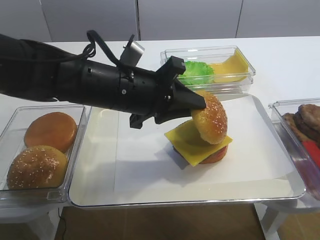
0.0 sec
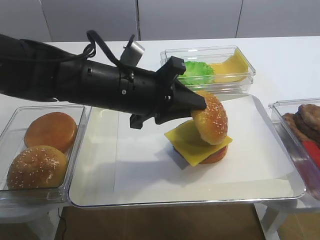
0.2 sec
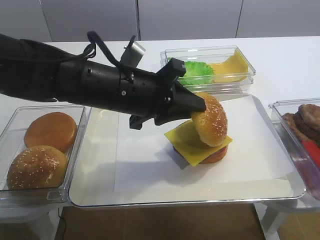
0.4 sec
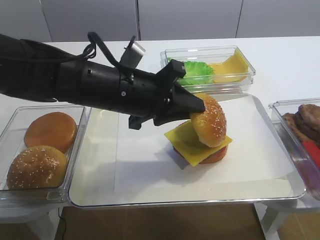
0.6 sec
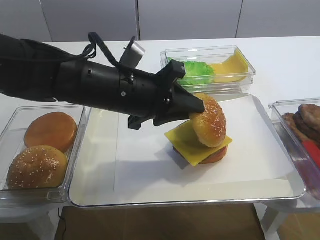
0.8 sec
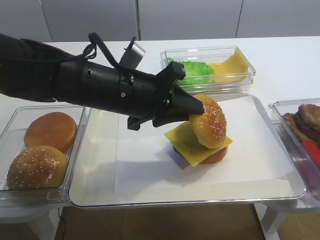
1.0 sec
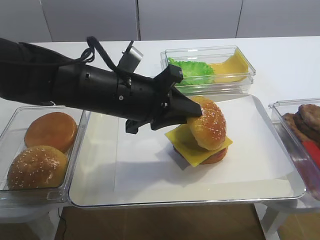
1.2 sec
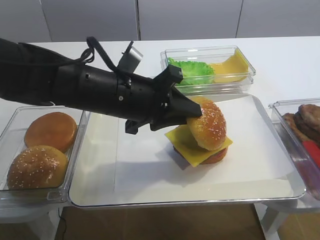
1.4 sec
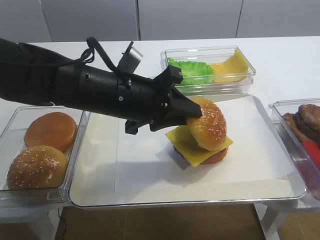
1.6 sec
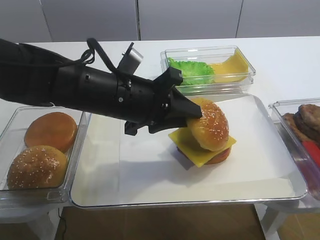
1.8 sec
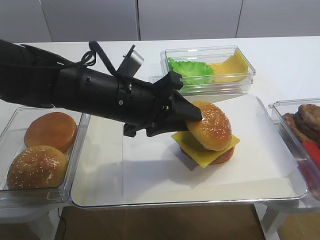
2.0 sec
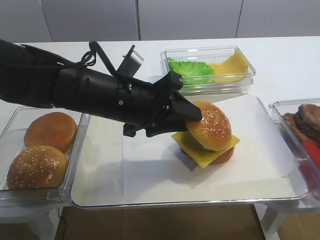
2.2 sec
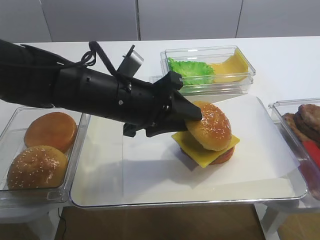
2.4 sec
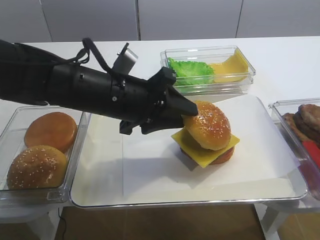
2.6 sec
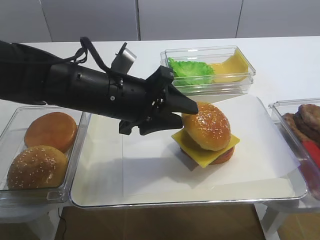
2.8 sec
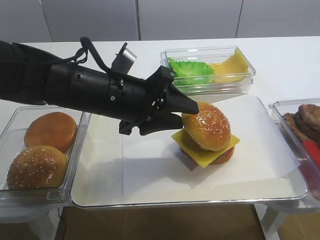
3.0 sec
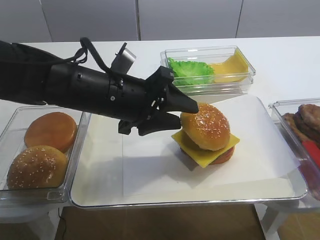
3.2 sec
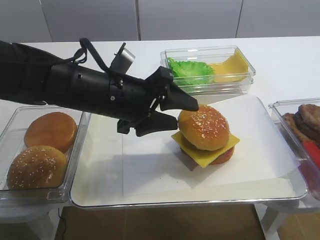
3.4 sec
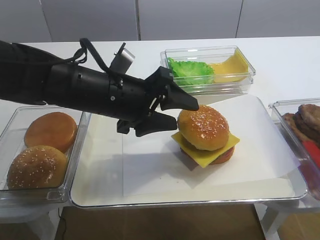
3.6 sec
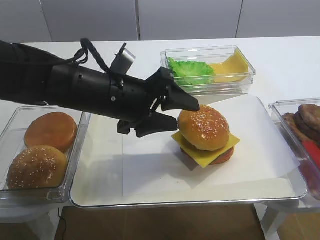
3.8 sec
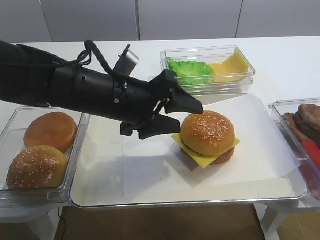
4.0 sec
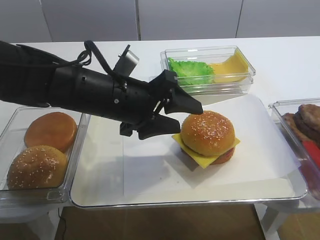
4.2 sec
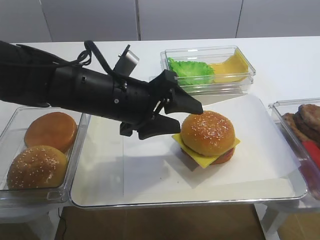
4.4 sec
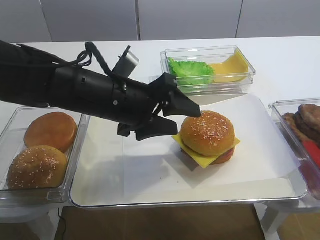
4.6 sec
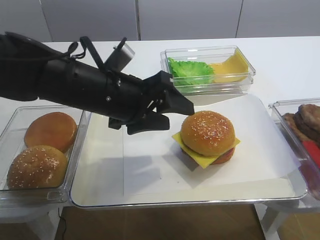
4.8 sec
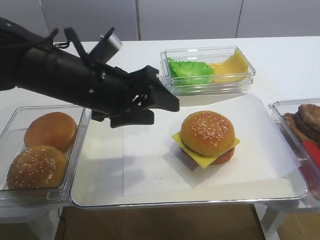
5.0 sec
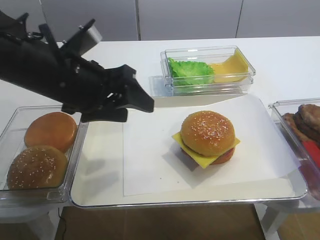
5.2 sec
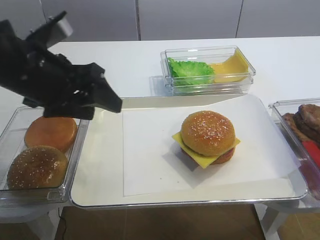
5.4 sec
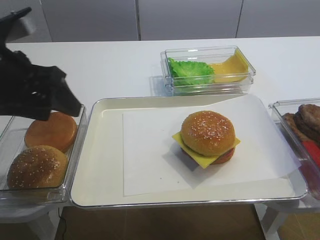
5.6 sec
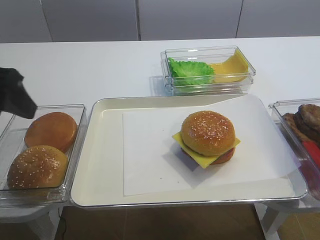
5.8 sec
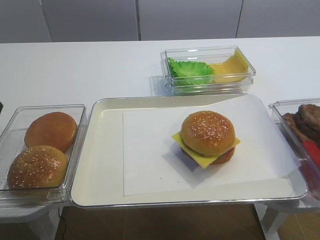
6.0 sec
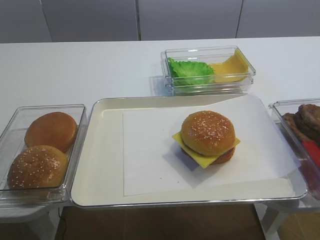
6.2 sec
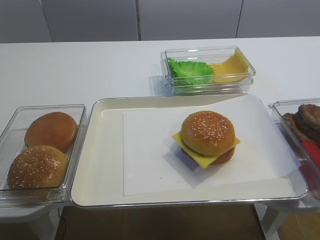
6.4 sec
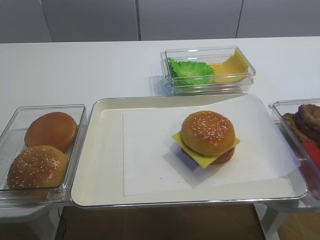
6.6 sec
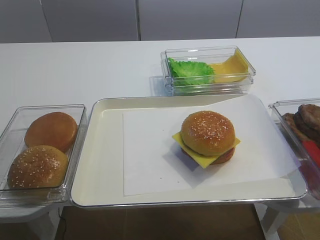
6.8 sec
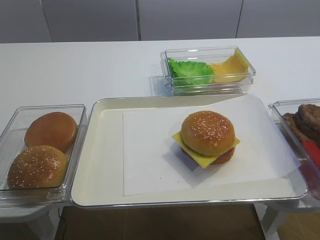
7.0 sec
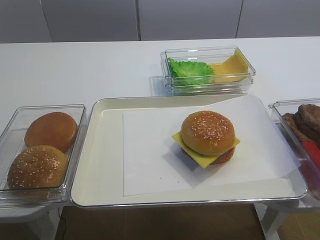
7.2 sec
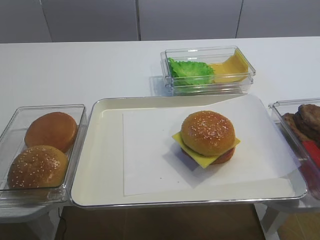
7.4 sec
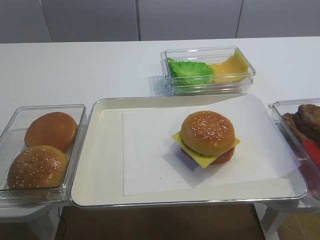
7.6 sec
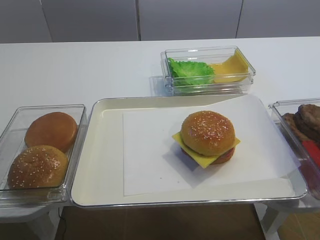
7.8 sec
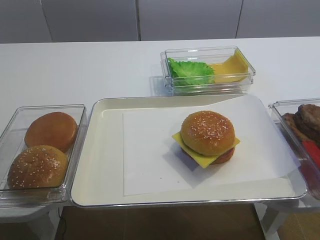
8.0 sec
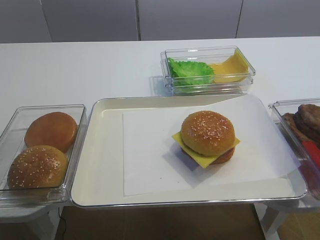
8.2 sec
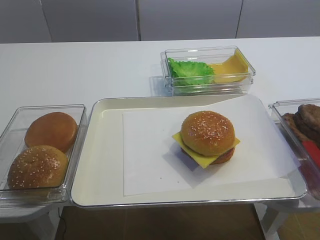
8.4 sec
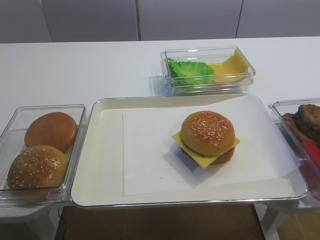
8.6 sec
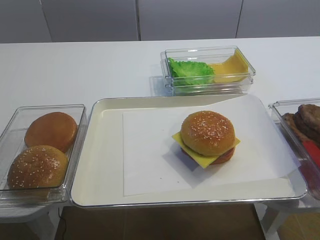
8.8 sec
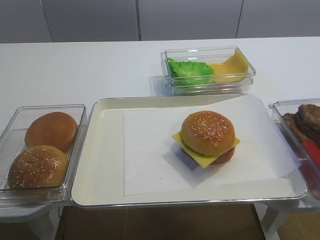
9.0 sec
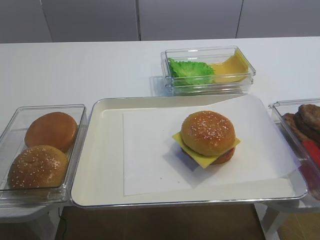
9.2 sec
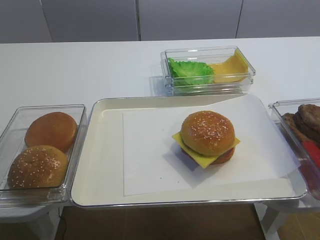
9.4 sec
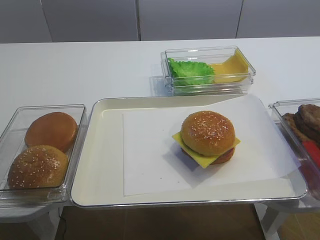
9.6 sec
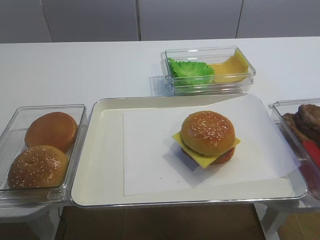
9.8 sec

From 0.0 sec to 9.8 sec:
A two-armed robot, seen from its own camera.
Step, from 0.0 sec to 4.8 sec: Place the hamburger lid on the cheese slice with the left gripper.
From 0.0 sec to 1.4 sec: Neither gripper changes place.
From 1.4 sec to 2.8 sec: The left gripper opens up.
From 2.8 sec to 4.2 sec: Both grippers stay put.
From 4.2 sec to 5.6 sec: The left gripper is displaced to the left and upward by approximately 15 cm.
From 5.6 sec to 7.0 sec: The left gripper heads backward, covering roughly 20 cm.

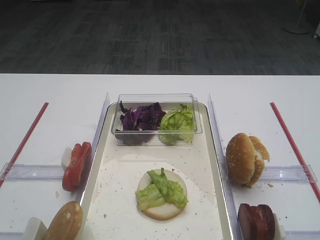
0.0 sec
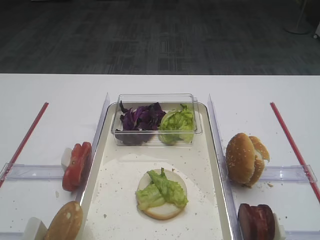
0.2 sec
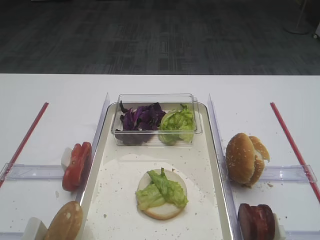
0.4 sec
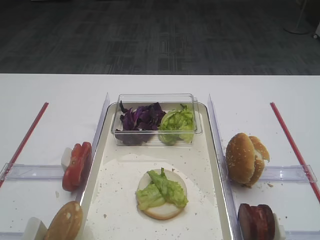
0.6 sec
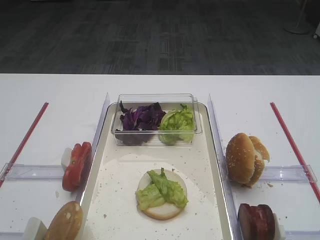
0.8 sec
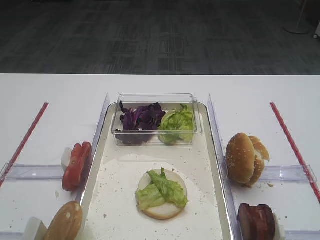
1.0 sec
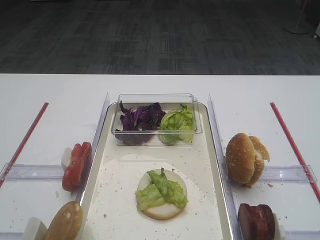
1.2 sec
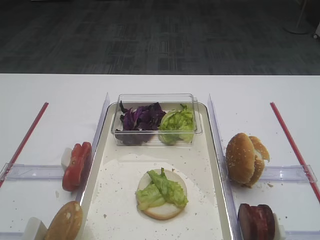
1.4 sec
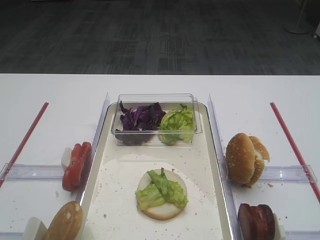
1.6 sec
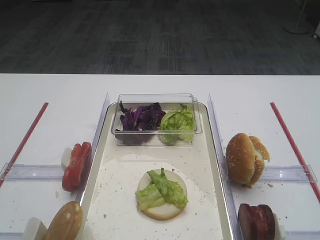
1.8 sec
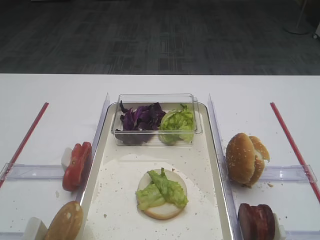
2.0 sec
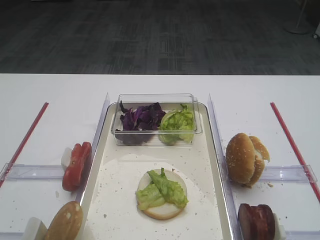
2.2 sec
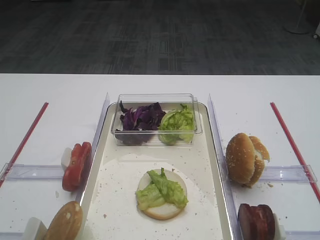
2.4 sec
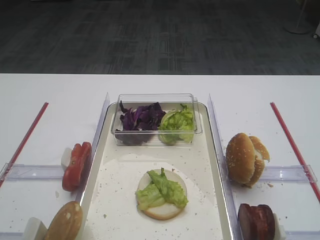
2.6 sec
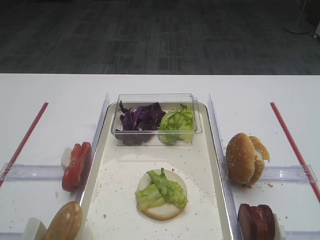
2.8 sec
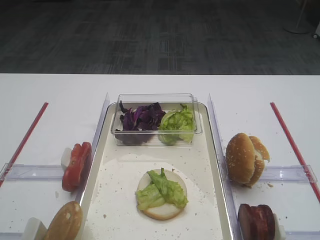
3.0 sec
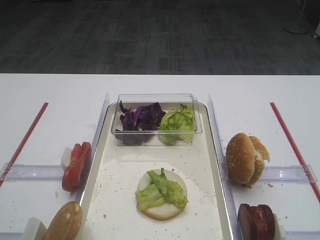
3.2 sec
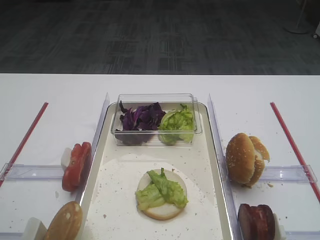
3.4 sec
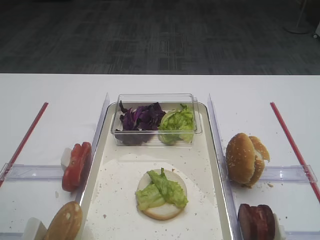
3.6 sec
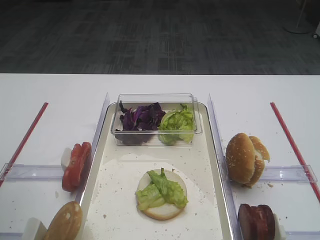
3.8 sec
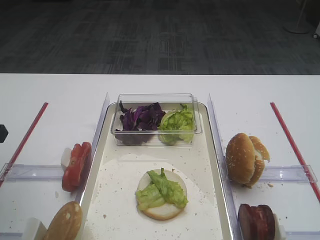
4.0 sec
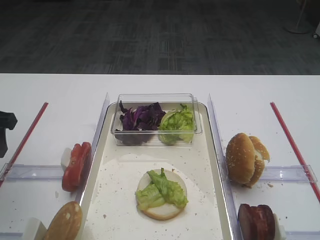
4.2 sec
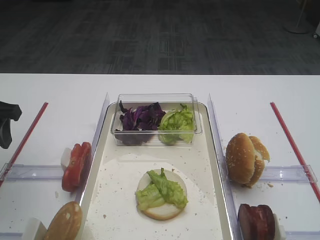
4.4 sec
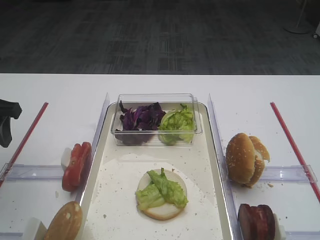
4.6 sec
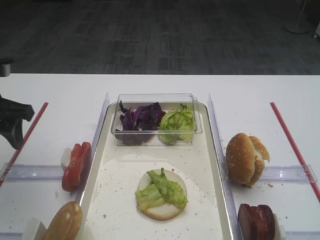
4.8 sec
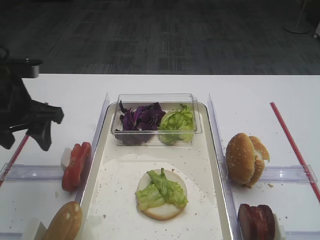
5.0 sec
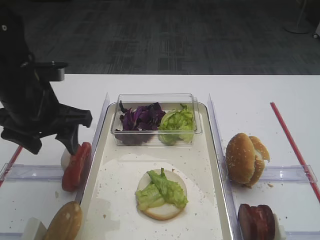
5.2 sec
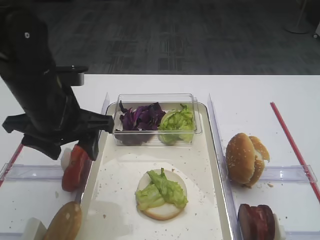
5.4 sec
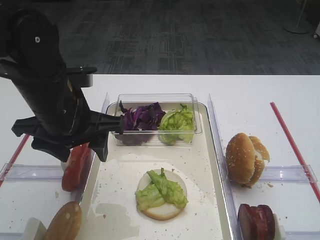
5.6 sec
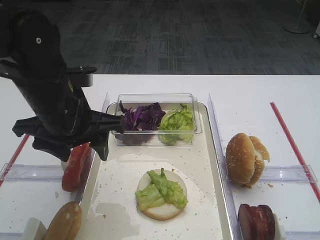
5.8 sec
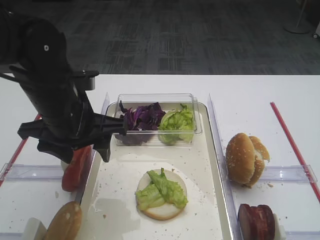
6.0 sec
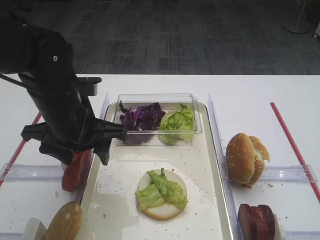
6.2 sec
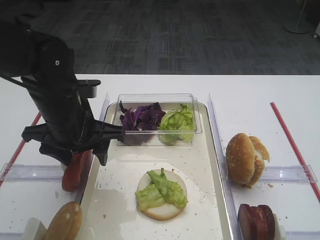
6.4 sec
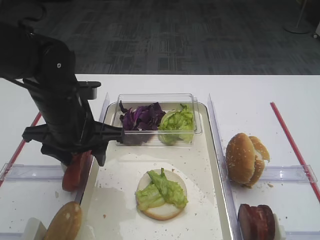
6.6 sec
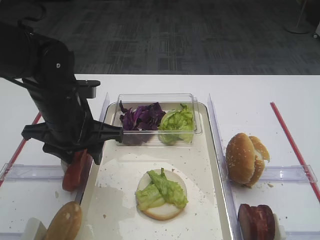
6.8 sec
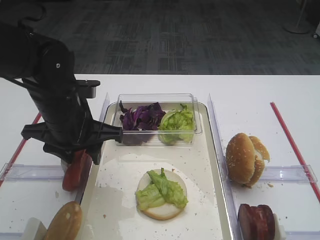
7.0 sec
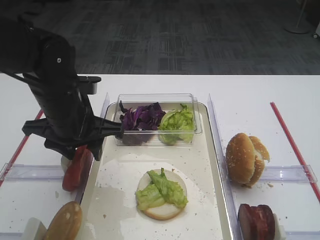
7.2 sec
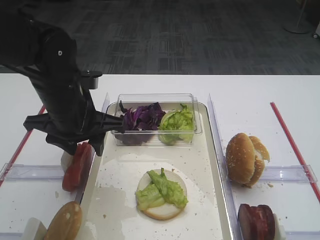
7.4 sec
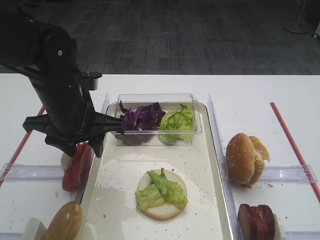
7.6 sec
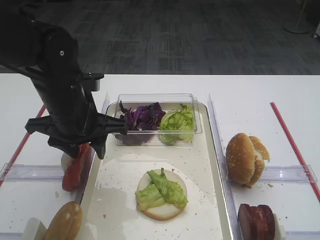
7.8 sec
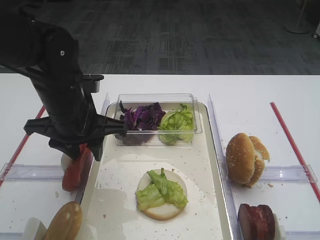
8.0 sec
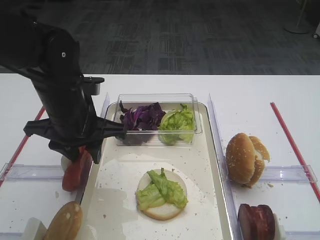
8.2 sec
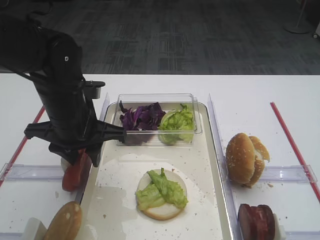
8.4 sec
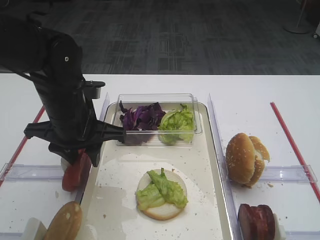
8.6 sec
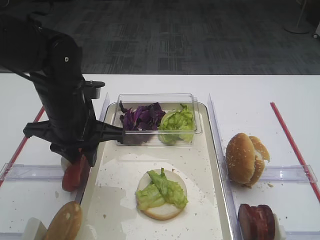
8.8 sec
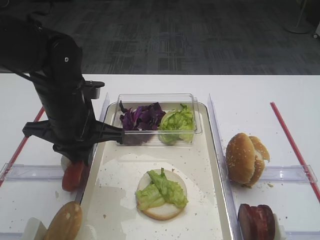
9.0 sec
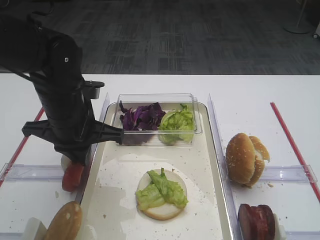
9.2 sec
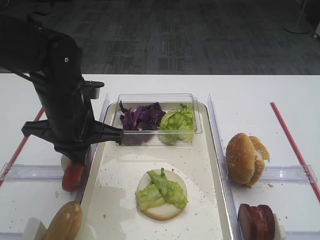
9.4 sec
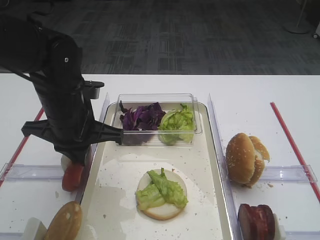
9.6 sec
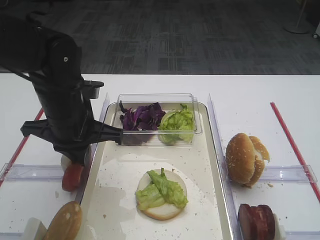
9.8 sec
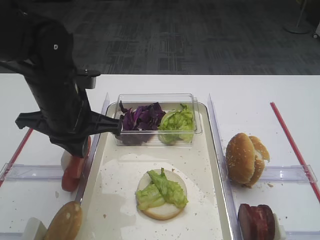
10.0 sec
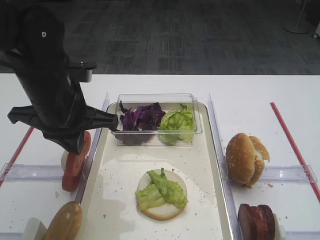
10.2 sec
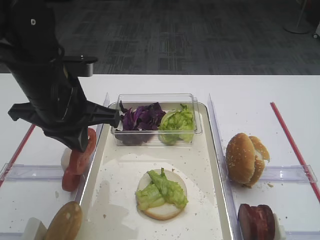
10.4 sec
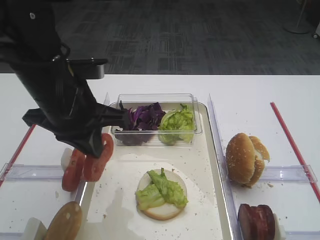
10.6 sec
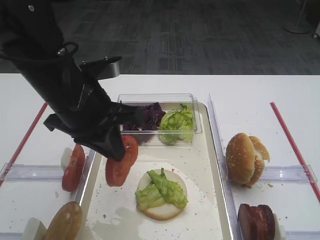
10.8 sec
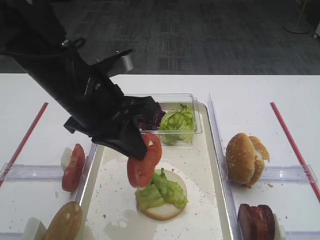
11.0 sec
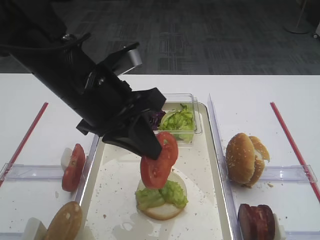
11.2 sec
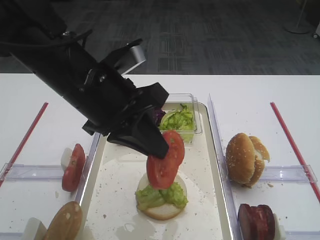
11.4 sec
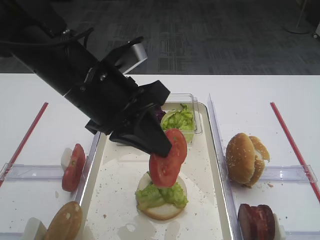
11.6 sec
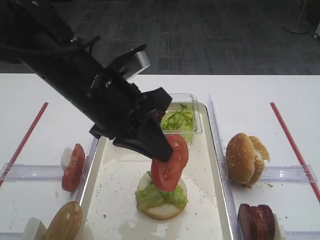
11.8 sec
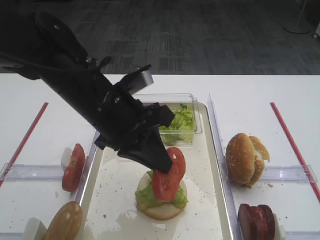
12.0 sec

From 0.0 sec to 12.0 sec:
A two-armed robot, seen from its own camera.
Step, from 0.0 sec to 10.2 sec: Pick up the tomato slice with the left gripper.
From 3.0 sec to 4.4 sec: The left gripper travels forward by roughly 20 cm.
From 4.4 sec to 6.0 sec: The left gripper is displaced to the right by approximately 15 cm.
From 6.0 sec to 7.6 sec: The grippers move only a little.
From 7.6 sec to 9.0 sec: The left gripper closes.
From 9.0 sec to 10.4 sec: The left gripper shifts about 5 cm upward.
From 10.4 sec to 12.0 sec: The left gripper goes some 5 cm to the right.

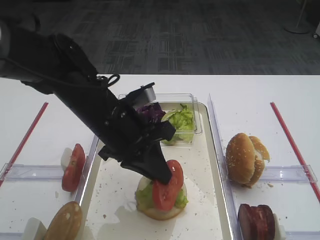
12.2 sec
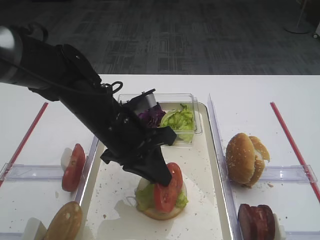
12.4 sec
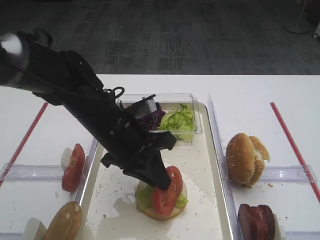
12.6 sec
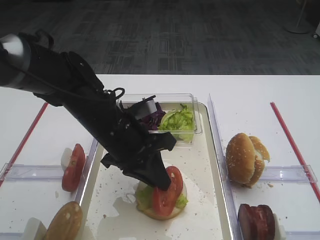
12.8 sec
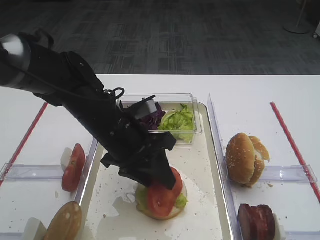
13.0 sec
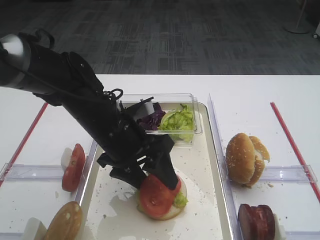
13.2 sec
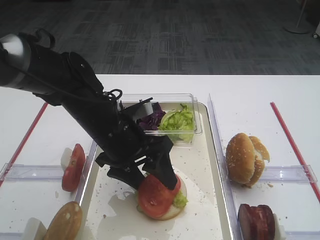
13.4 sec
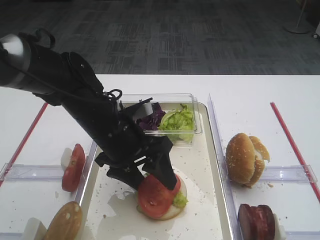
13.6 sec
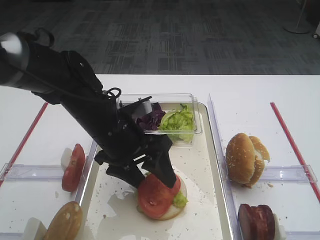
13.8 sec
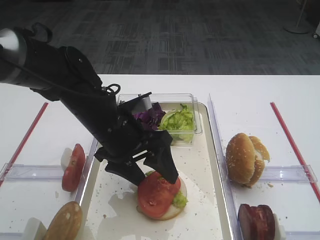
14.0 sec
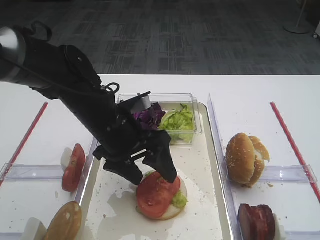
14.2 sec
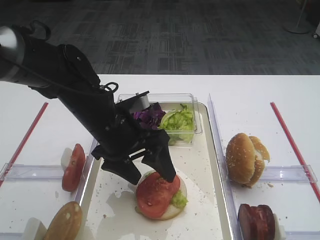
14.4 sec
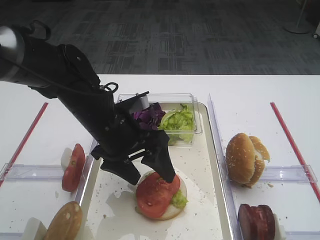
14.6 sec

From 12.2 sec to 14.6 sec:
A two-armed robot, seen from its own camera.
From 12.2 sec to 13.4 sec: The left gripper opens.
From 13.4 sec to 14.6 sec: Both grippers stay about where they are.
